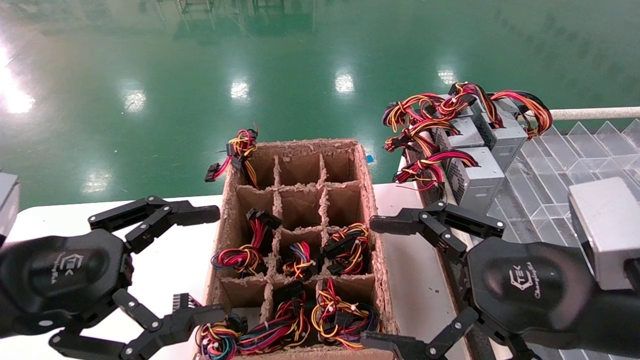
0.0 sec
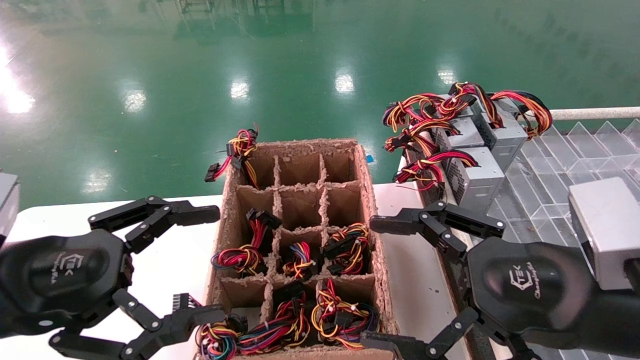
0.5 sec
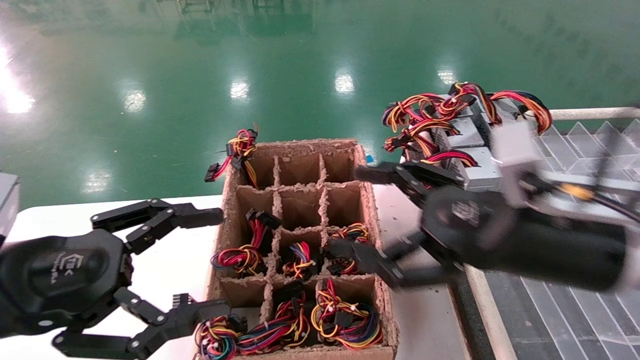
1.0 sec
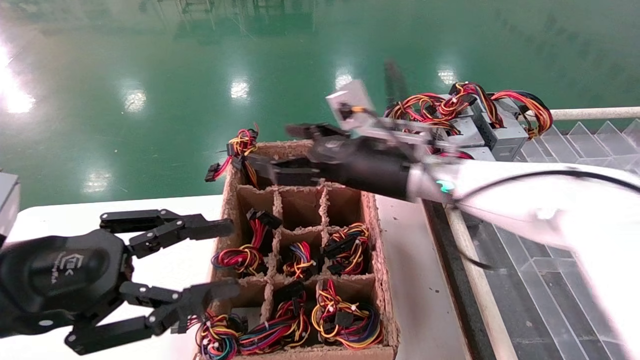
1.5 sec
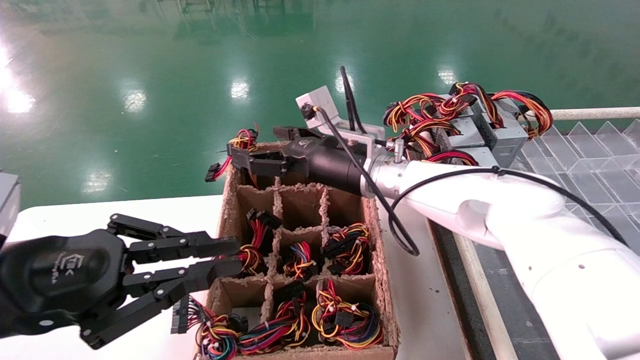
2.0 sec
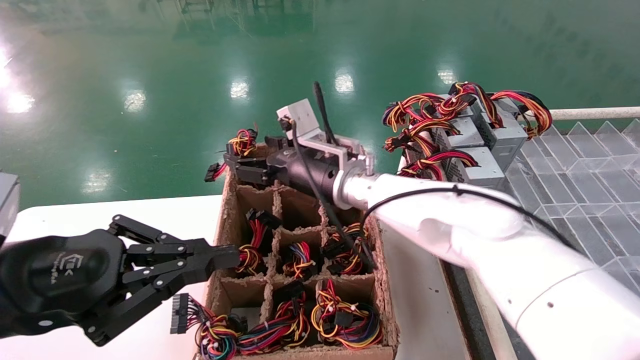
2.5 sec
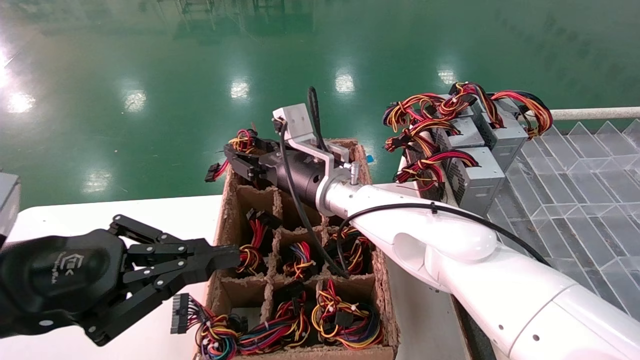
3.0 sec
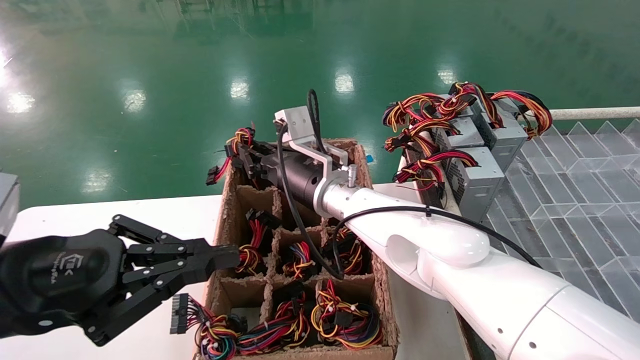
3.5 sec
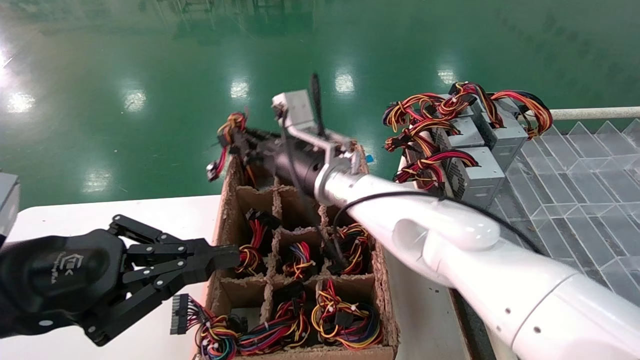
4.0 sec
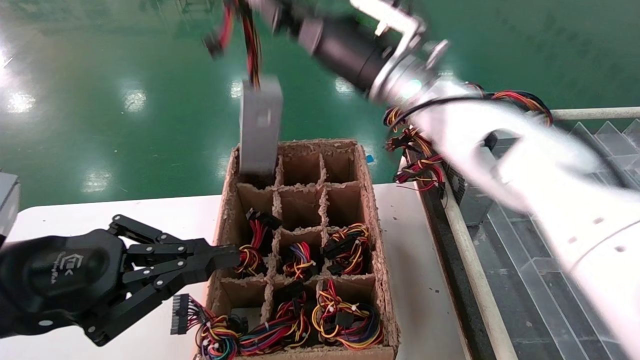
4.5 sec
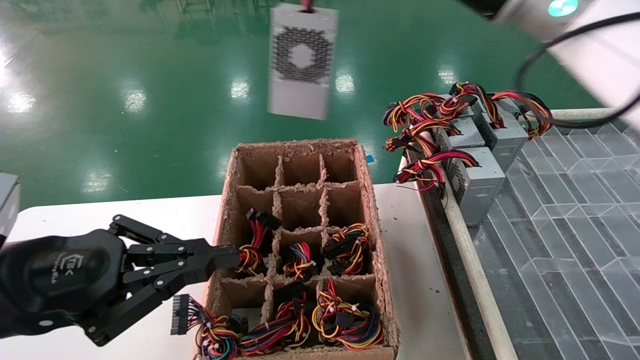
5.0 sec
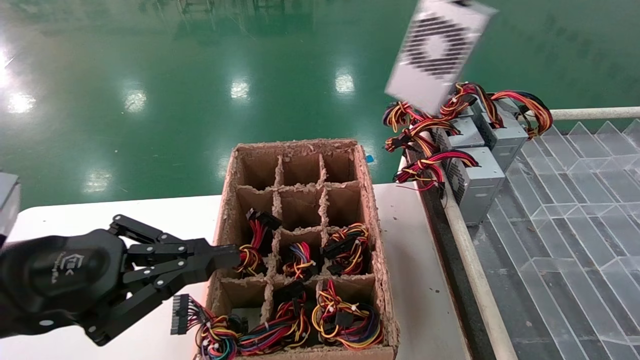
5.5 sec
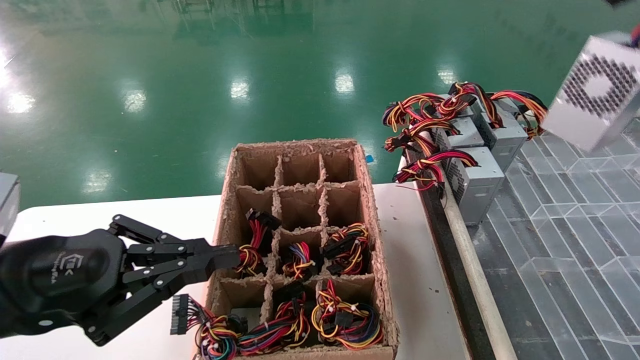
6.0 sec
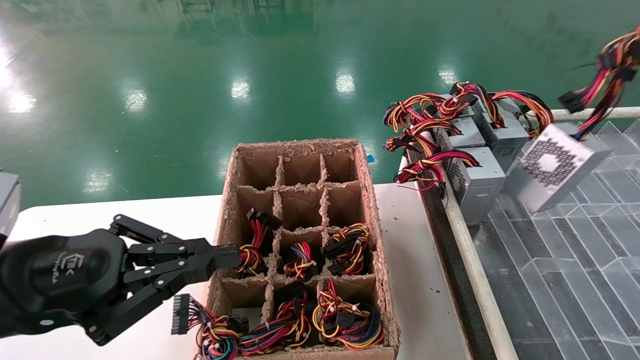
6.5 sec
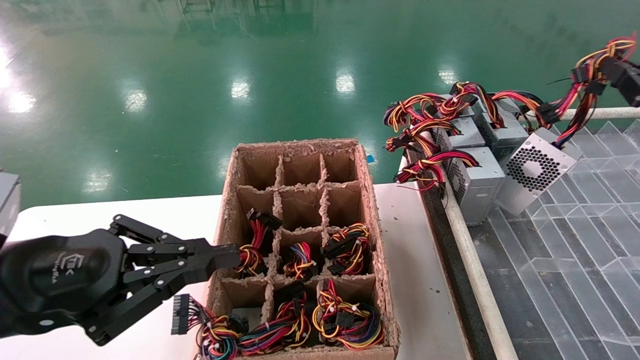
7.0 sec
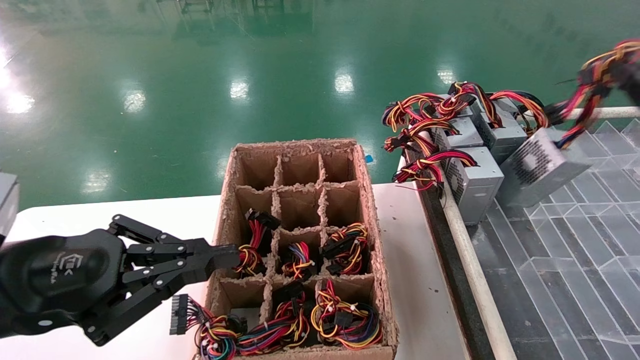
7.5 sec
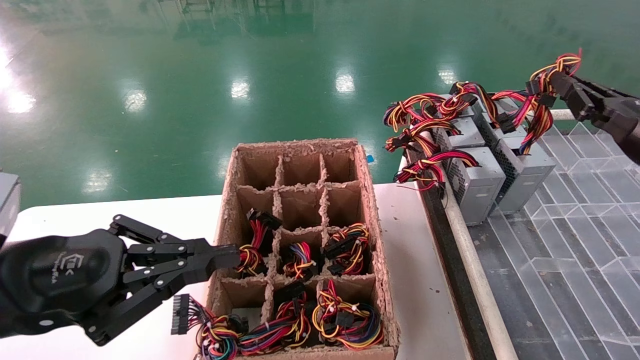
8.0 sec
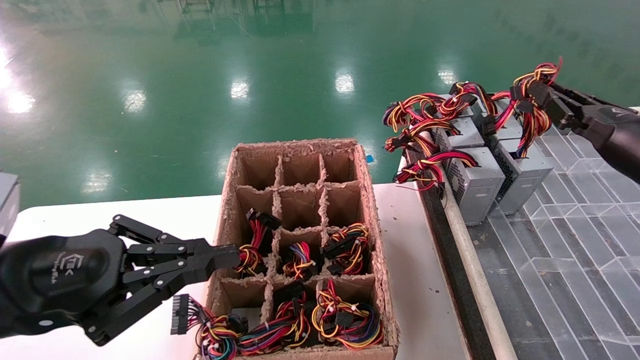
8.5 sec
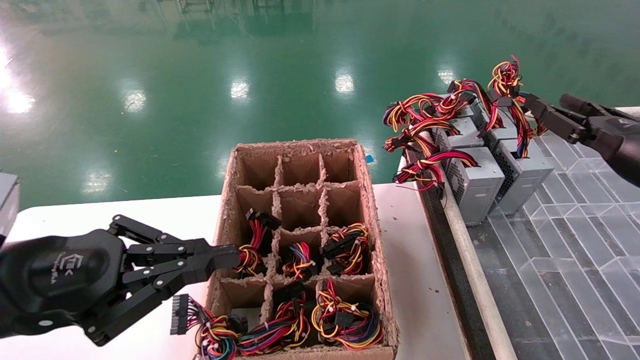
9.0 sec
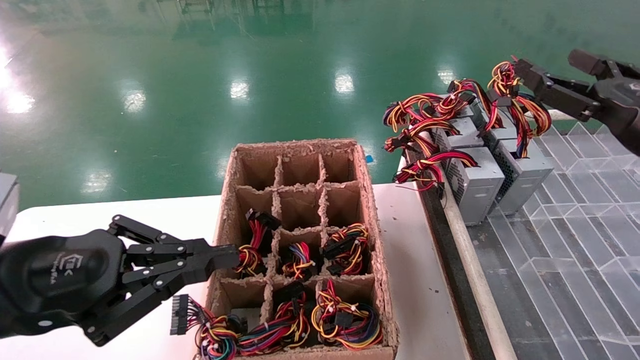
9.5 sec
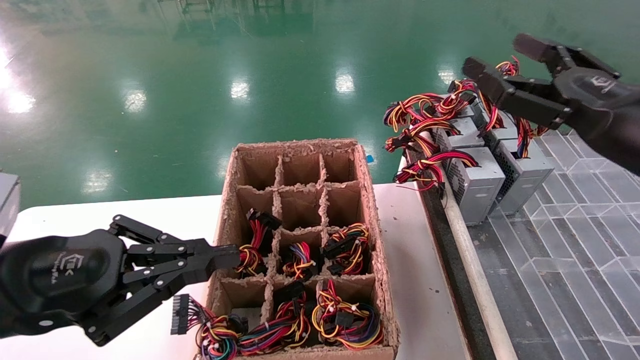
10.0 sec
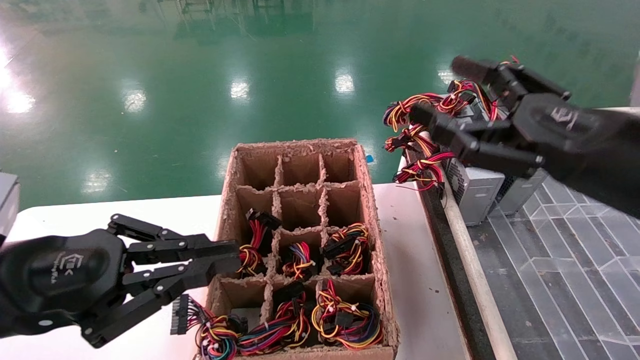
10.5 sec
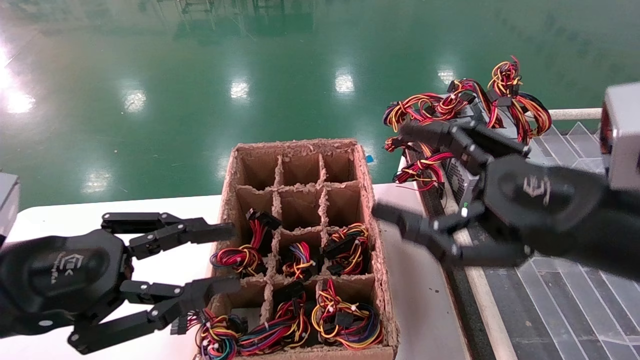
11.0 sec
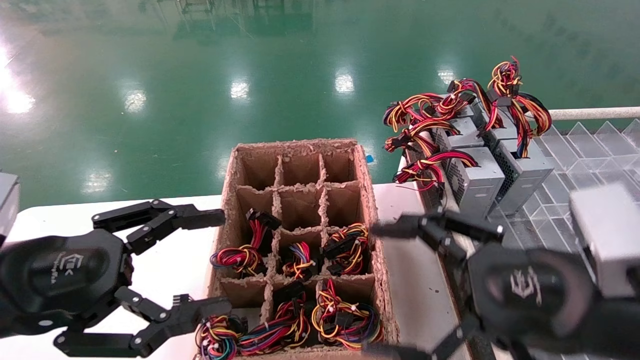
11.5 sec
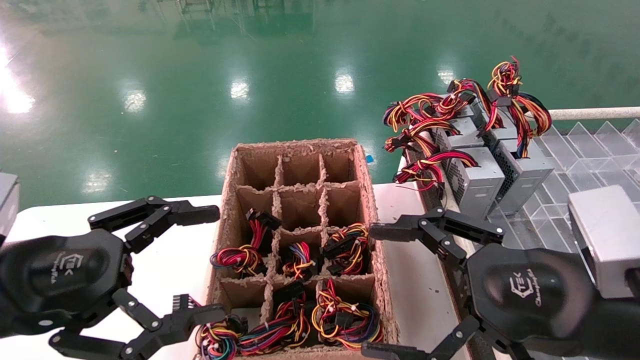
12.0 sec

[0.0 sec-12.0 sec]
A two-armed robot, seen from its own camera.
Step, 1.0 sec to 3.5 sec: Grab the main unit power supply from the containment box.
Step, 4.0 sec to 9.0 sec: Place the main unit power supply in the designated area.
0.0 sec to 2.0 sec: The left gripper closes its fingers, while the right gripper heads forward and to the left, covering about 30 cm.
2.0 sec to 4.0 sec: The right gripper closes its fingers.
4.0 sec to 6.0 sec: The right gripper shifts about 50 cm to the right and backward.
6.0 sec to 8.0 sec: The right gripper travels downward and forward by about 15 cm.
8.0 sec to 10.0 sec: The right gripper goes approximately 10 cm to the left, and opens up.
10.0 sec to 12.0 sec: The left gripper opens, while the right gripper travels downward, to the left and backward by about 15 cm.

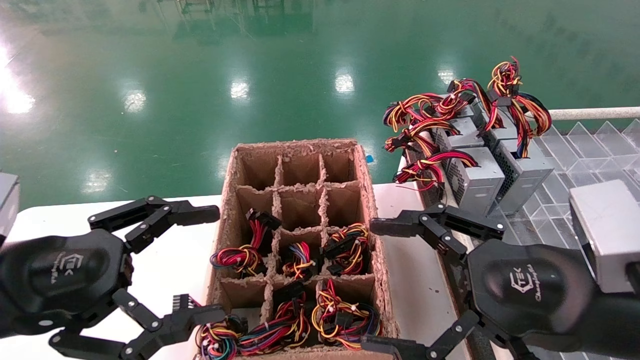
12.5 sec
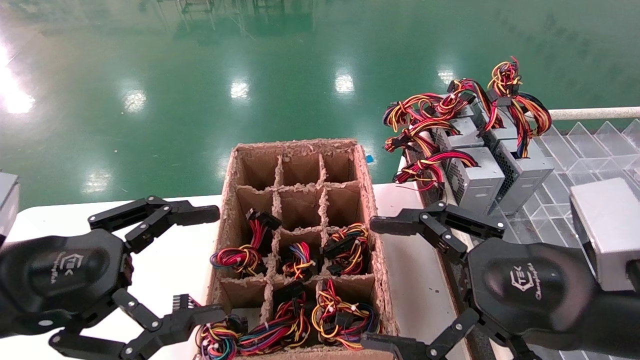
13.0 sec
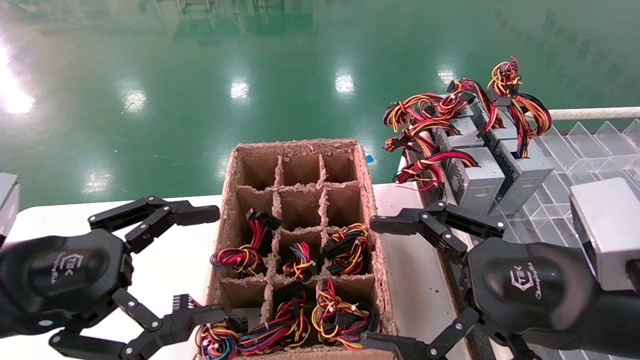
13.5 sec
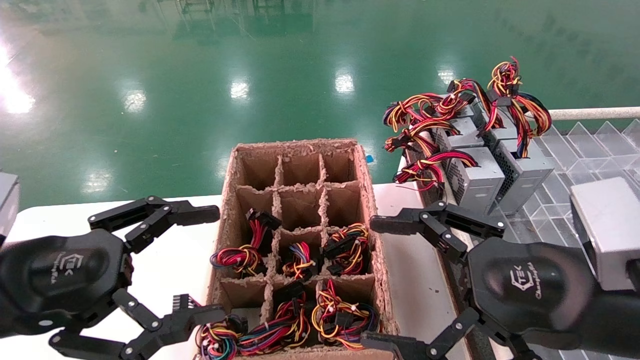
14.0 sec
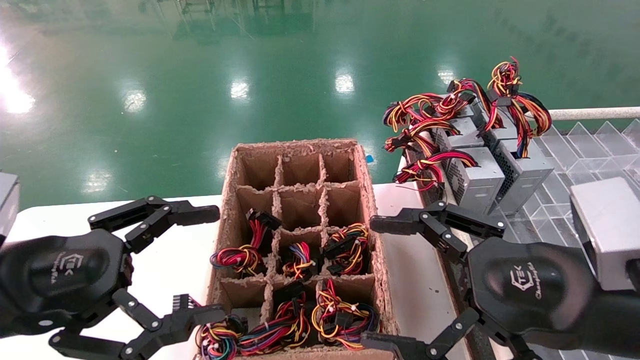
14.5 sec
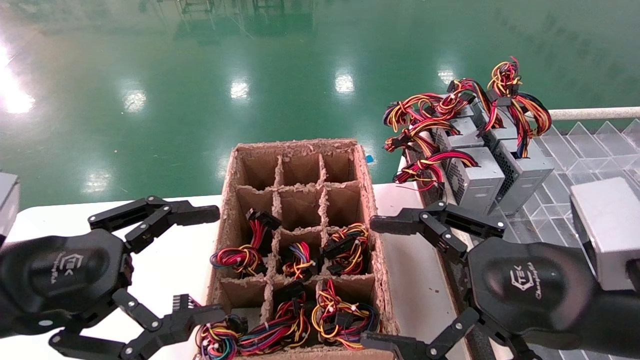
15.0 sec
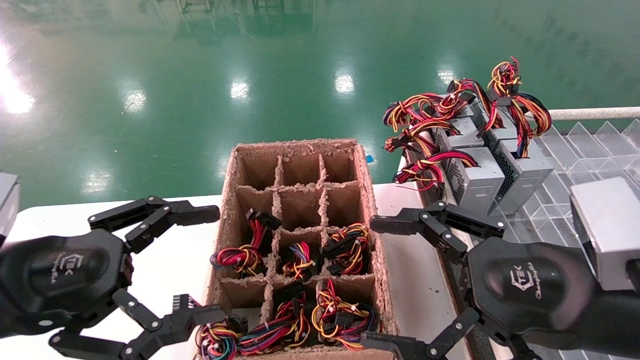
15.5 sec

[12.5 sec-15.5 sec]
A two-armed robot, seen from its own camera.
12.5 sec to 15.5 sec: Both grippers stay put.
